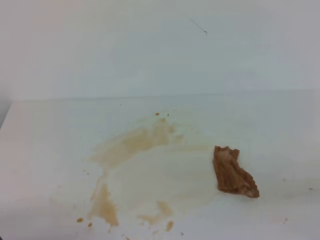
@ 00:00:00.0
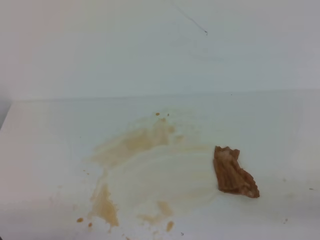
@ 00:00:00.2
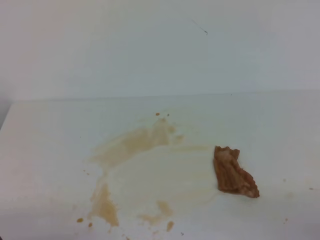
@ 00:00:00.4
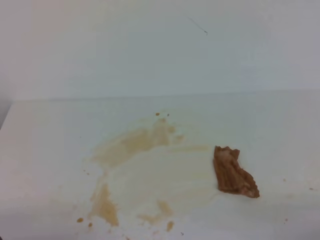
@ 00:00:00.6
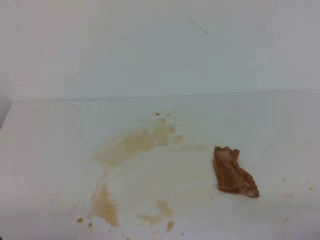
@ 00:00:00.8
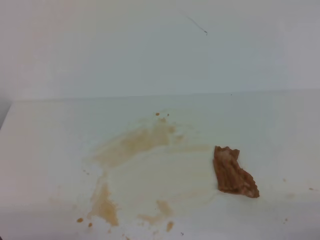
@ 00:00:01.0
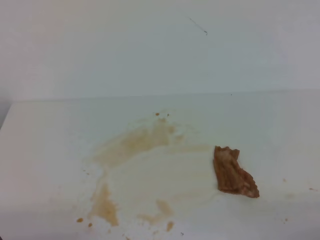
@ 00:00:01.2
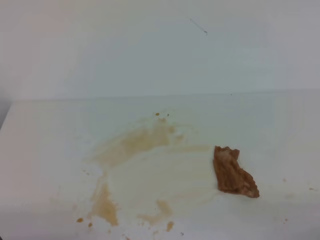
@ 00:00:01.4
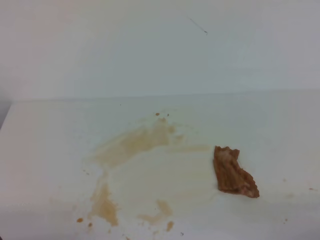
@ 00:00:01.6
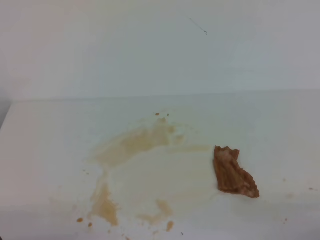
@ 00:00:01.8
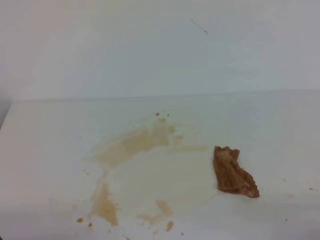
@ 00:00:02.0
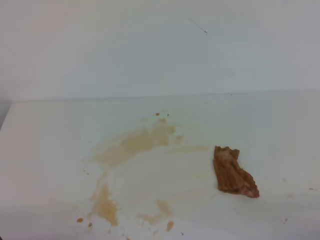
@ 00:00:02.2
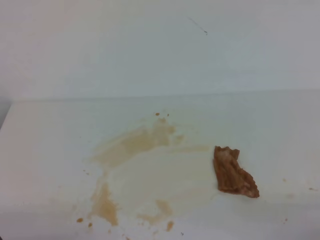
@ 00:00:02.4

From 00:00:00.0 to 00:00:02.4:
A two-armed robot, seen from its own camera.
From 00:00:01.2 to 00:00:02.4: The two grippers keep their place.
